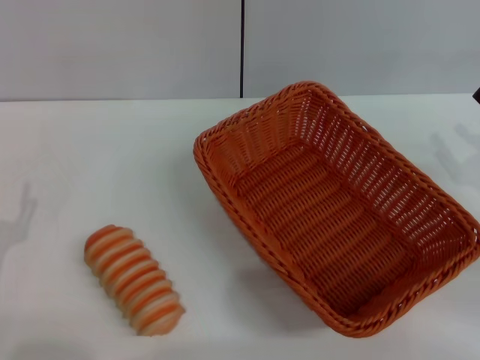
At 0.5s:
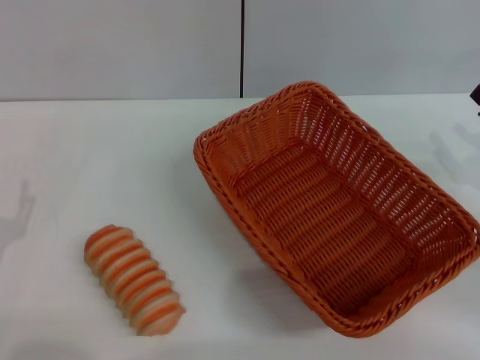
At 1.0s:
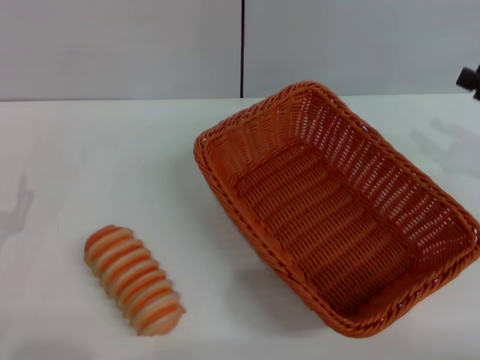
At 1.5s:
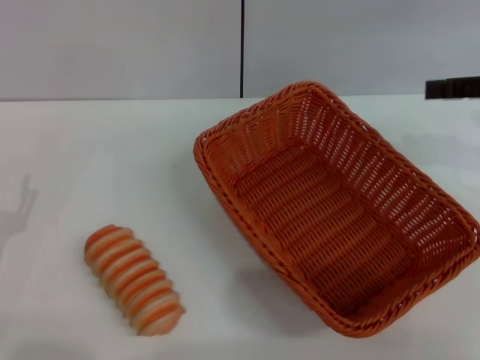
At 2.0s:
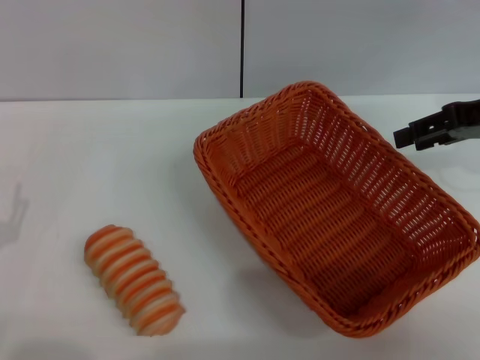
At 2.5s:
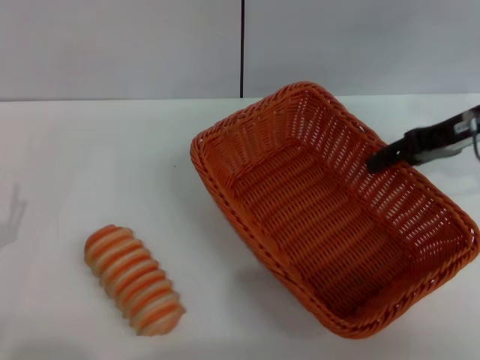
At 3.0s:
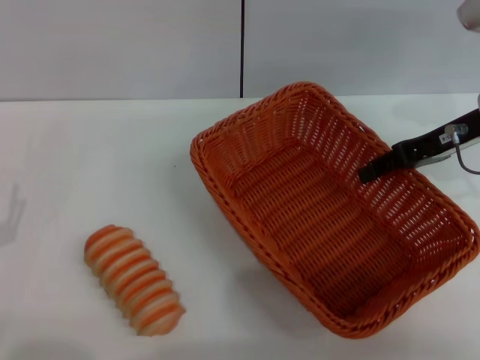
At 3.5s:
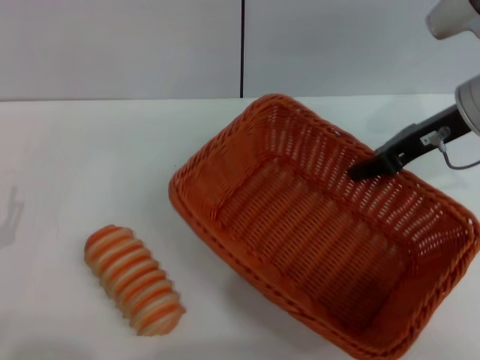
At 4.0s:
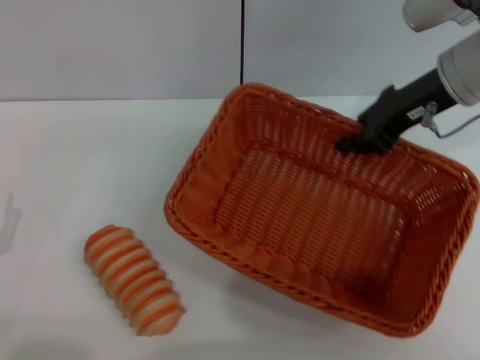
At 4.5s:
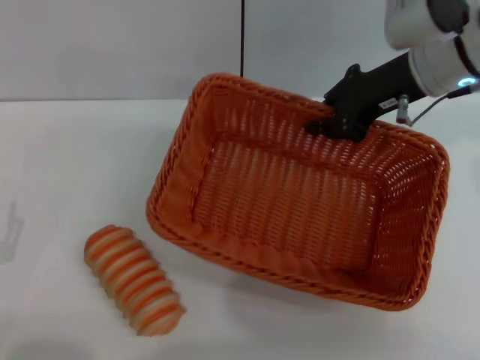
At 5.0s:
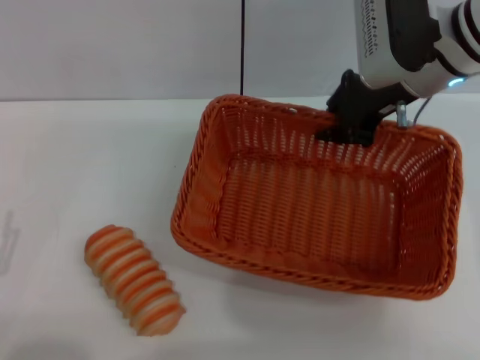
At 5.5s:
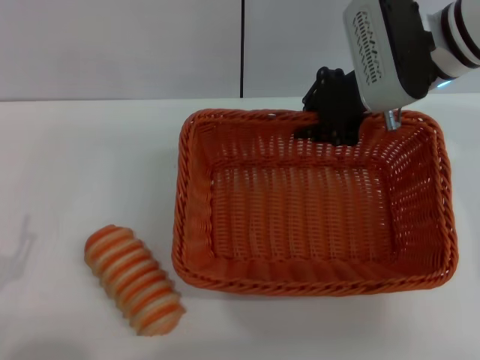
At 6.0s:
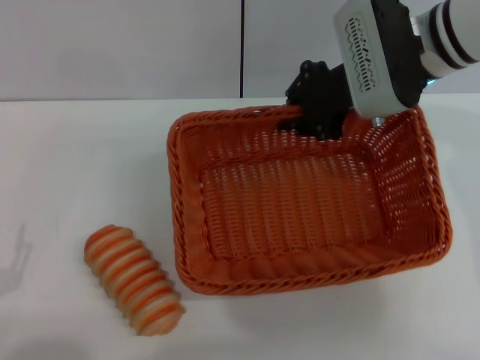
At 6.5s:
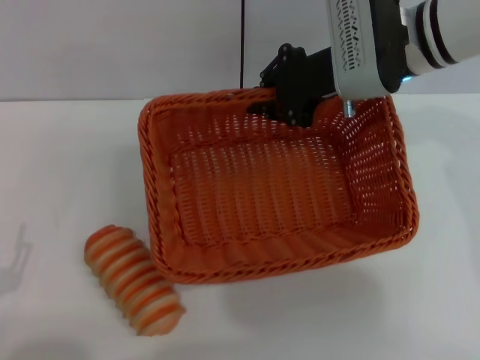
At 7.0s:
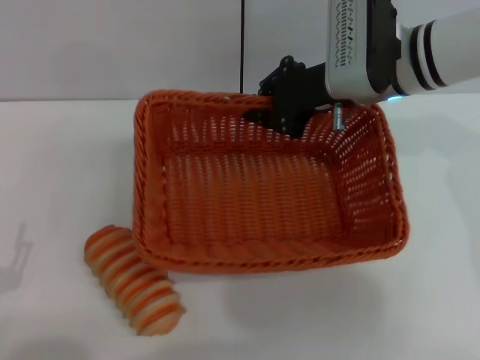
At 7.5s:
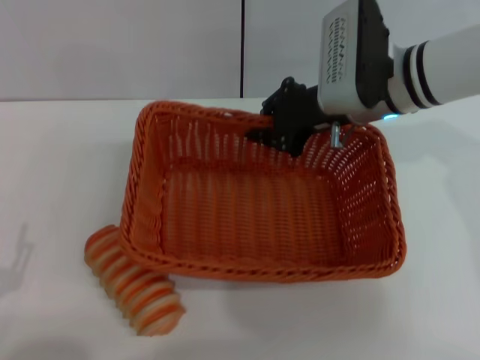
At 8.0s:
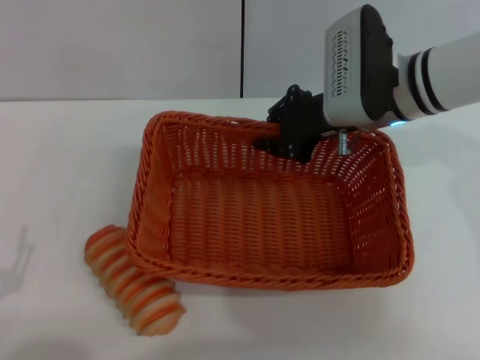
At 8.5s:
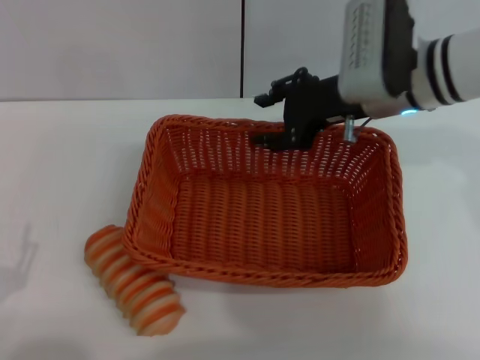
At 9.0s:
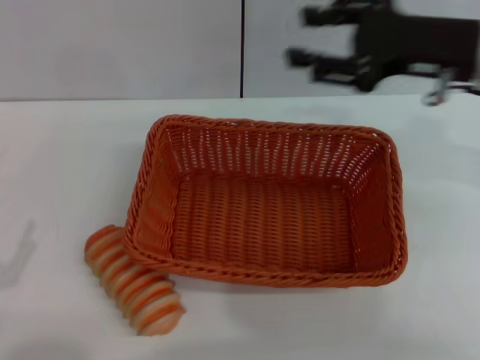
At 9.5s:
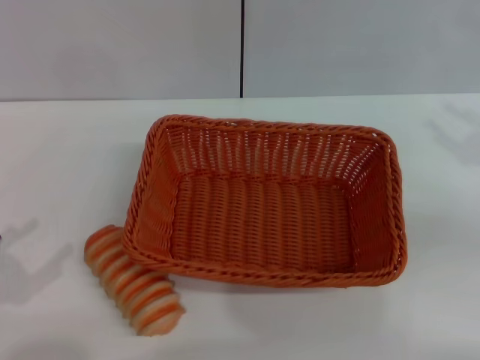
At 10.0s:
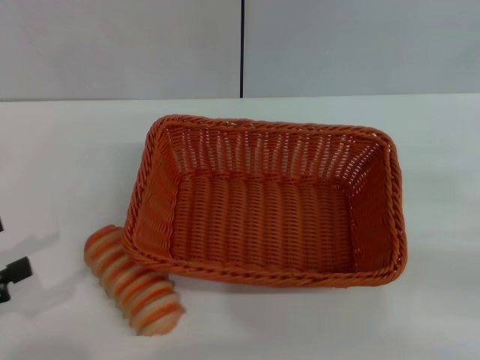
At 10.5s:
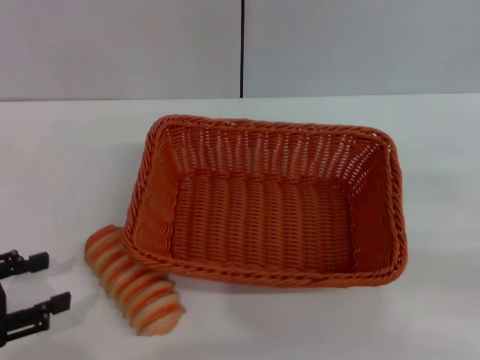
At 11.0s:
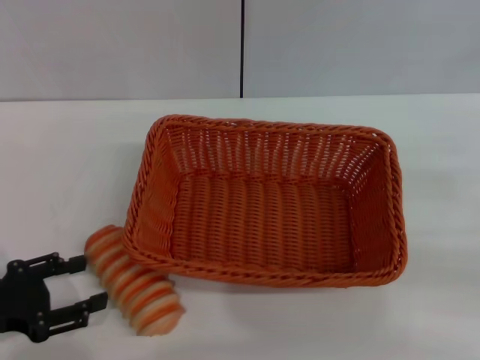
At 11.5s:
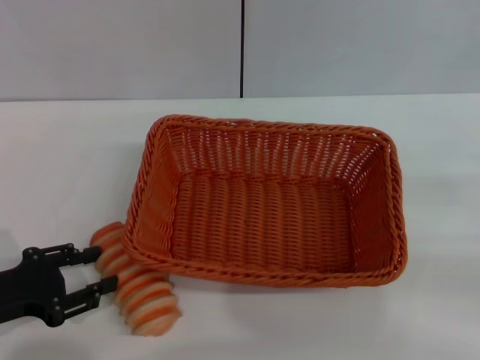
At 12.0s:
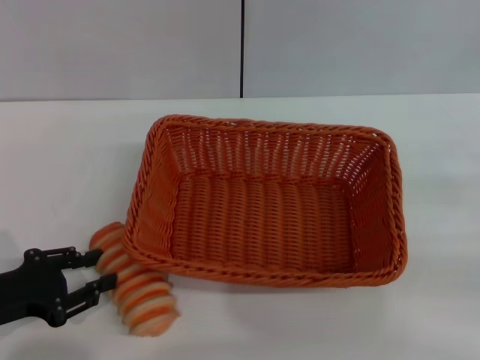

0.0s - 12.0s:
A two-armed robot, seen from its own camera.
Step, 0.0s - 4.5s: Pick up the light basket with the right gripper.
Step, 5.0s - 8.5s: Place the light basket in the center of view with the right gripper.
0.0s - 2.0s: The right gripper shifts about 15 cm upward and forward.
2.0s - 4.0s: The right gripper travels to the left by roughly 10 cm, and closes up.
4.0s - 6.0s: The right gripper goes some 5 cm to the left. Meanwhile the left gripper heads backward, covering approximately 5 cm.
8.0s - 10.0s: The right gripper shifts about 30 cm to the right and backward, and opens up. Meanwhile the left gripper travels upward and to the left by approximately 10 cm.
10.0s - 12.0s: The left gripper moves downward, forward and to the right, some 10 cm, and closes up.

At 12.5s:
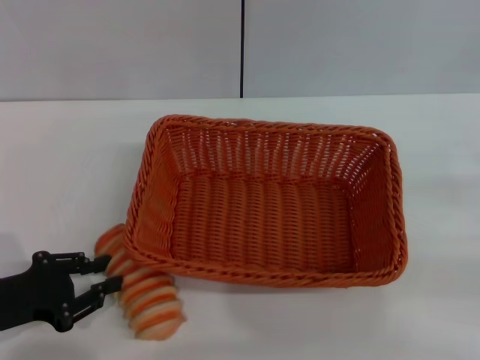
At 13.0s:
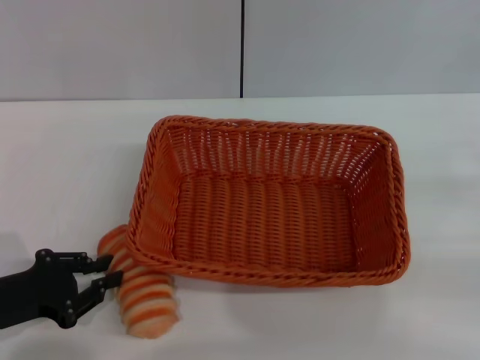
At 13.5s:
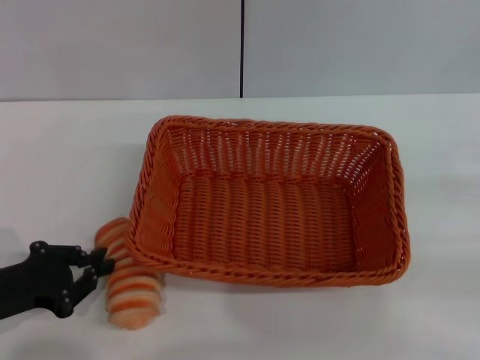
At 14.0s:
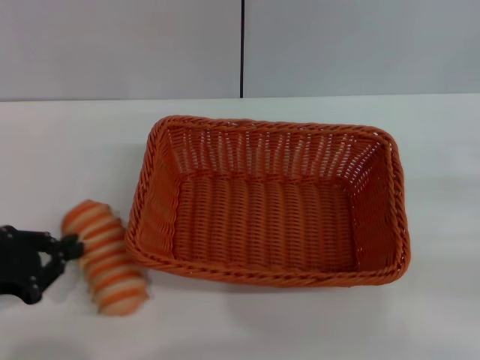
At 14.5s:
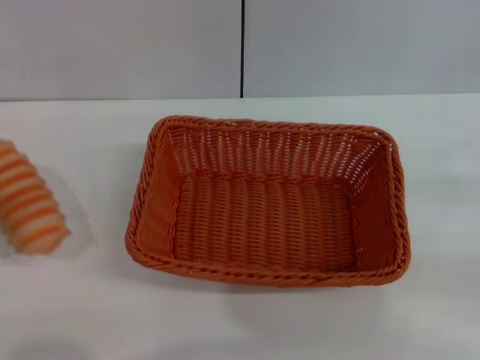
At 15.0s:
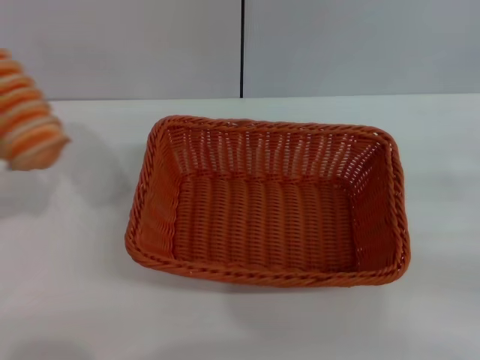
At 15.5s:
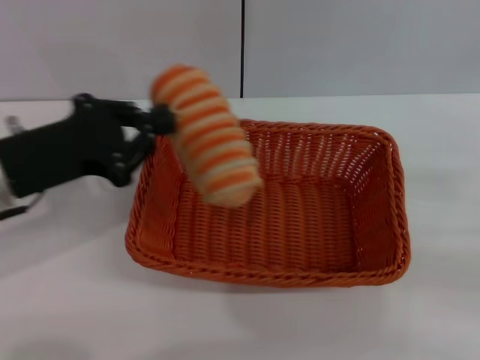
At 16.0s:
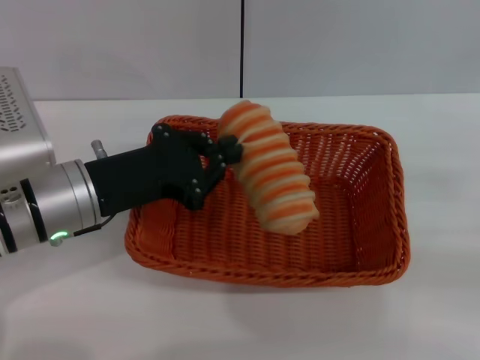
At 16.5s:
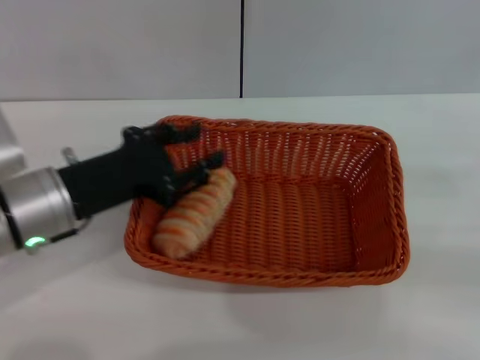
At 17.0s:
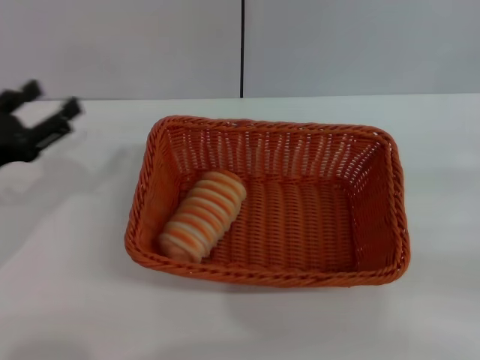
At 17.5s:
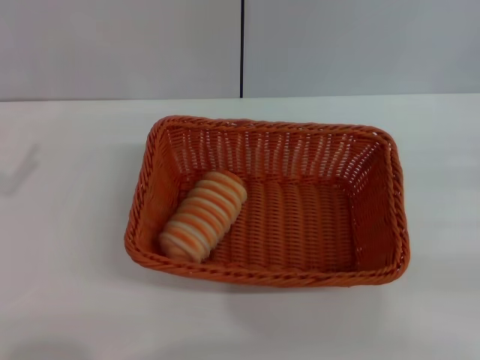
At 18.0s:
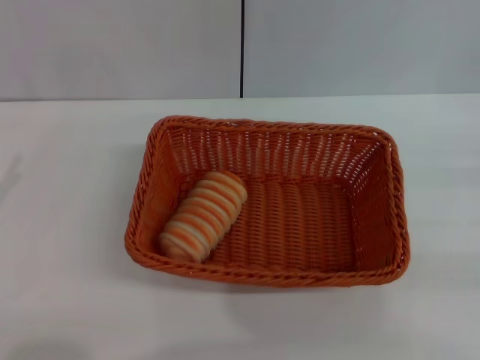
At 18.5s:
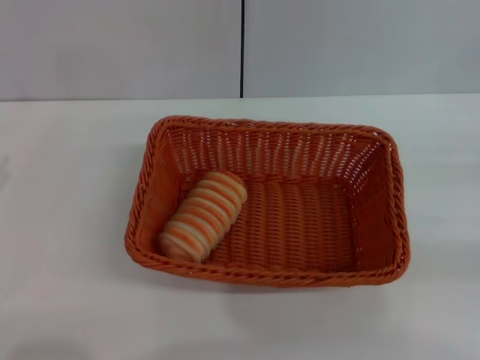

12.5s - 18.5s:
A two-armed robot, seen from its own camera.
Step, 12.5s - 14.5s: Pick up the long bread with the left gripper.
Step, 15.0s - 16.5s: Place the long bread into the light basket with the left gripper.
12.5s - 14.5s: The left gripper goes about 10 cm upward and to the left, and closes.
14.5s - 16.5s: The left gripper goes about 20 cm to the right.
16.5s - 18.5s: The left gripper moves to the left and backward, about 20 cm, and opens.

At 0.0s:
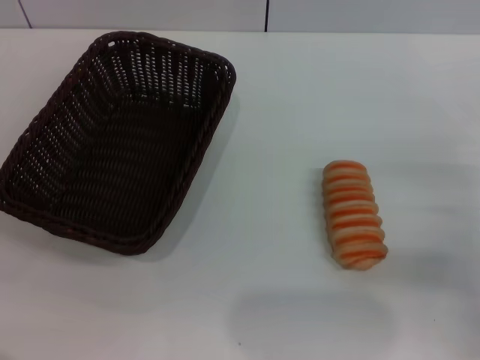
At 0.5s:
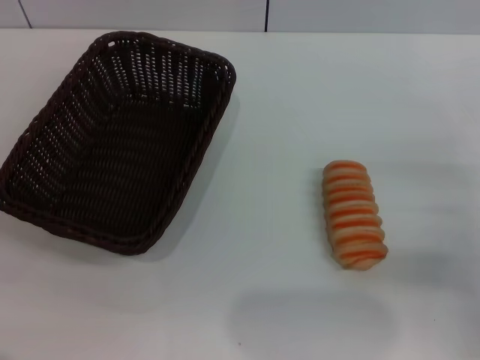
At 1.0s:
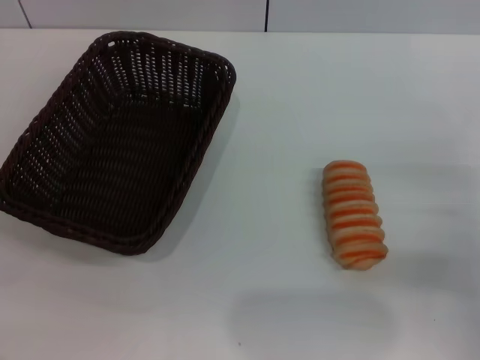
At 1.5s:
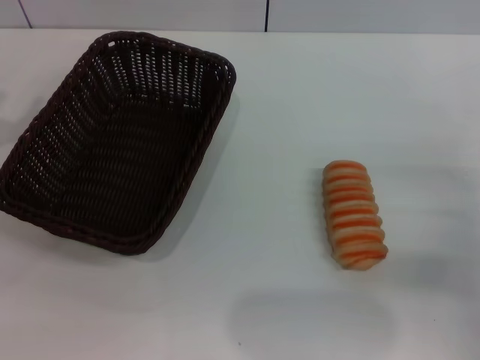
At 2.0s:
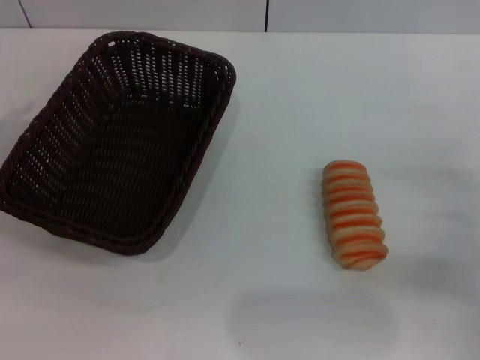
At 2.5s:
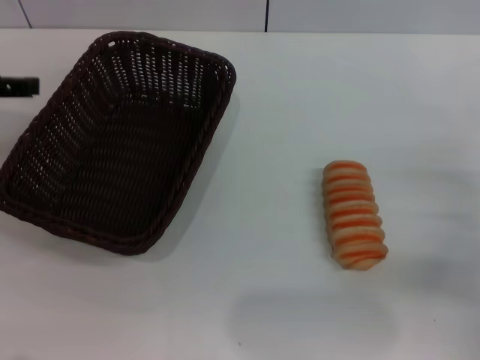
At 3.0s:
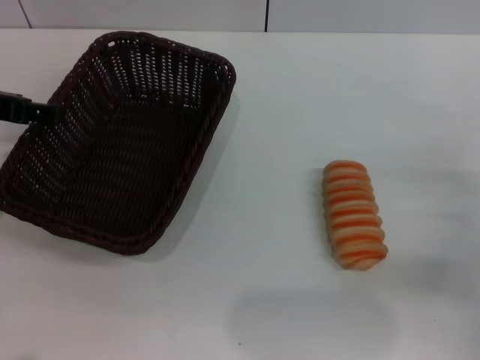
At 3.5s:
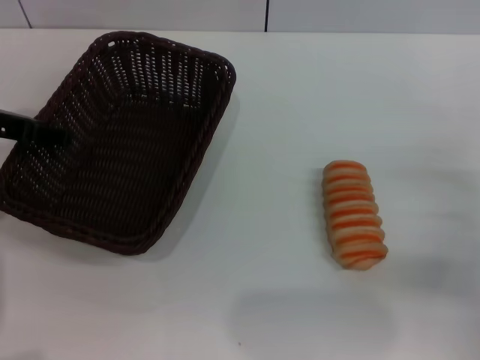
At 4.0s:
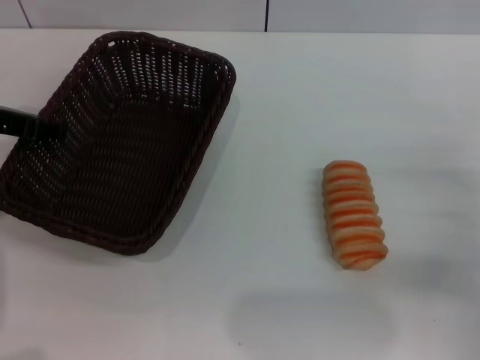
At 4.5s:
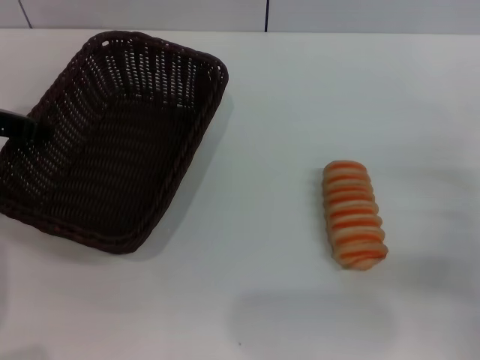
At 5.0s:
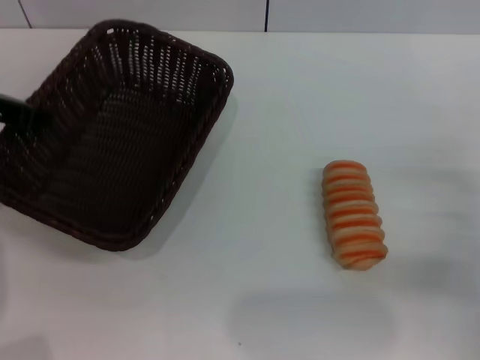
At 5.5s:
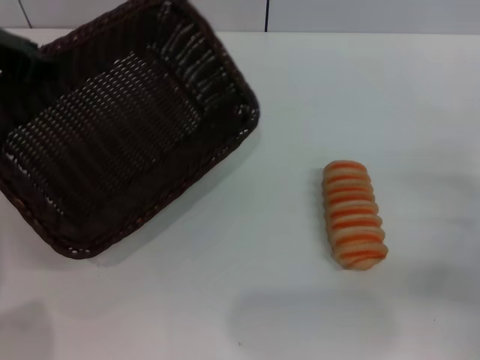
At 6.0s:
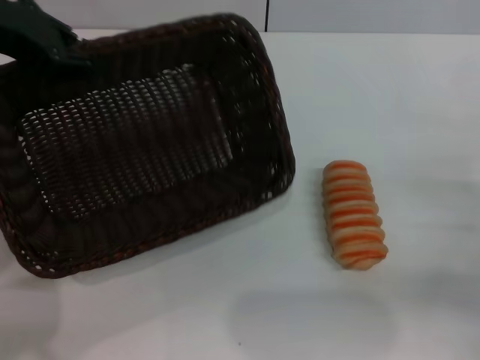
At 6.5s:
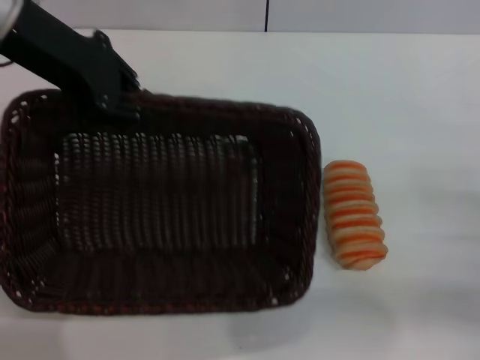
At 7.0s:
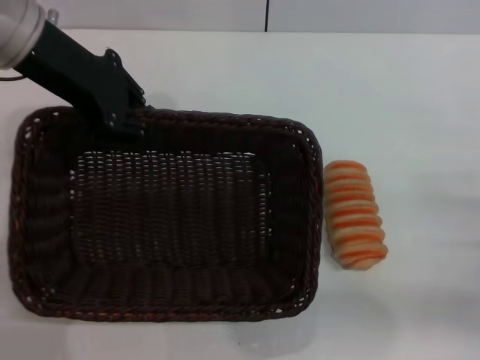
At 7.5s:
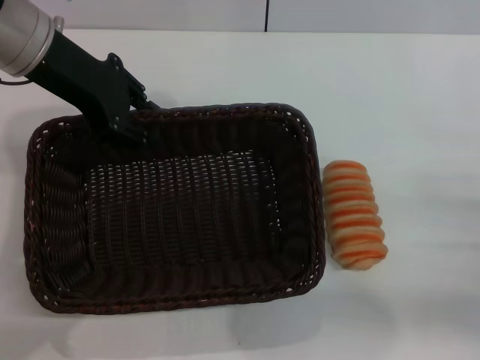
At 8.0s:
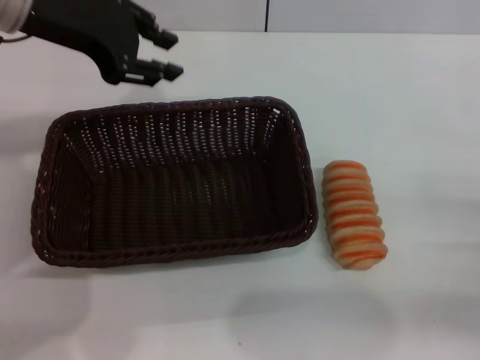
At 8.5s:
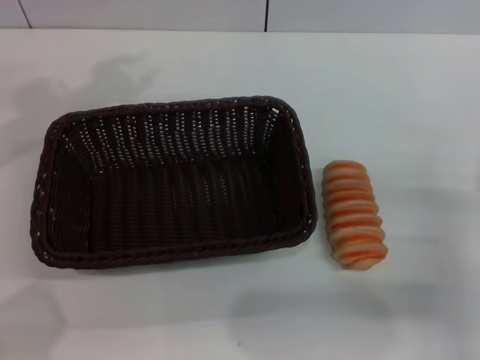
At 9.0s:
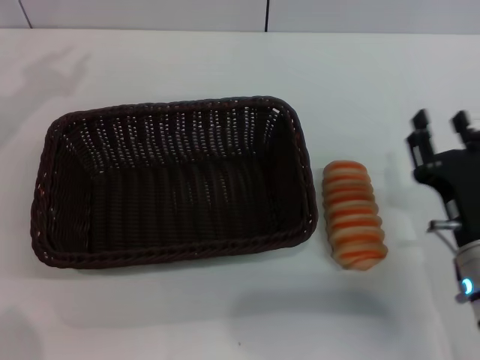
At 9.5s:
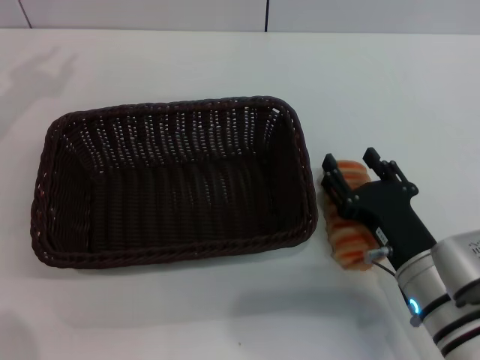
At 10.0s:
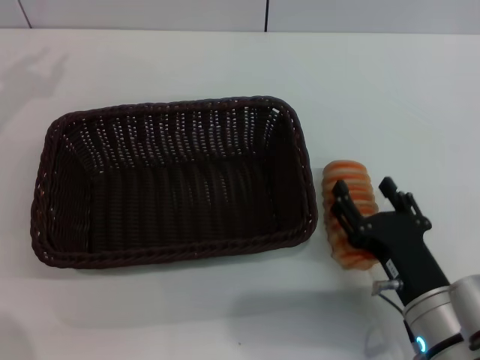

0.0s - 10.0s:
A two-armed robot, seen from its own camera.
Step, 0.0s - 5.0s: Pick up the dark basket with the left gripper.
Step, 5.5s - 8.0s: Place the dark basket in the center of view with the left gripper.
4.0s - 6.0s: The left gripper is displaced upward by some 10 cm, and closes its fingers.
6.0s - 8.0s: The left gripper ends up about 5 cm from where it was, and opens.
8.0s - 10.0s: Both grippers move to the left, approximately 15 cm. The right gripper opens up.
